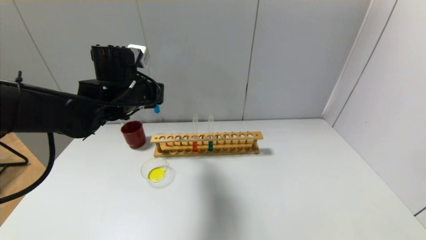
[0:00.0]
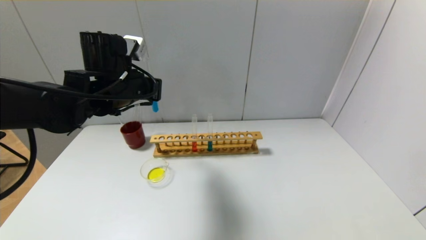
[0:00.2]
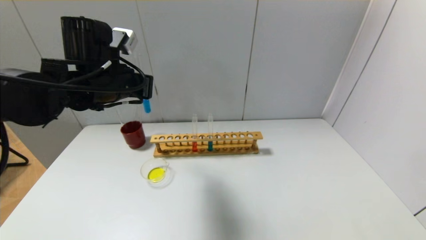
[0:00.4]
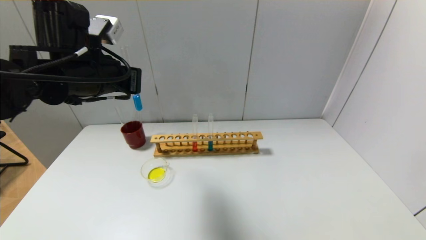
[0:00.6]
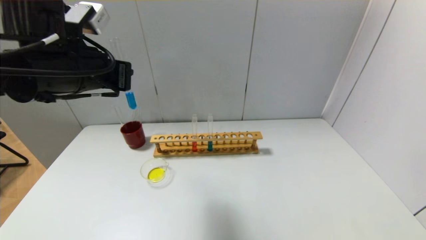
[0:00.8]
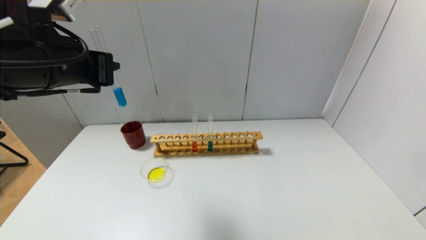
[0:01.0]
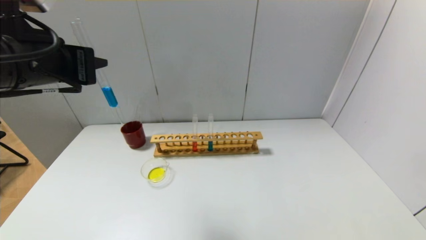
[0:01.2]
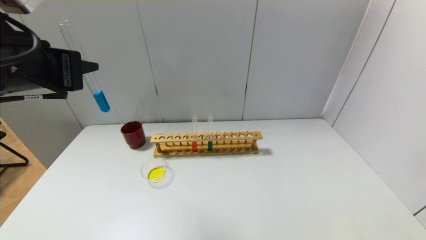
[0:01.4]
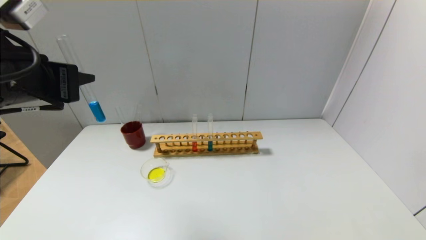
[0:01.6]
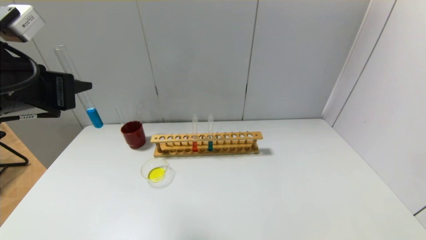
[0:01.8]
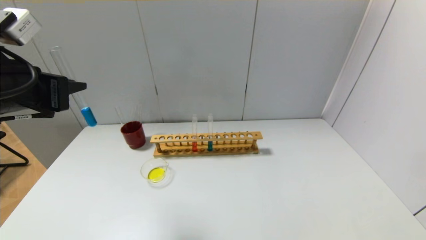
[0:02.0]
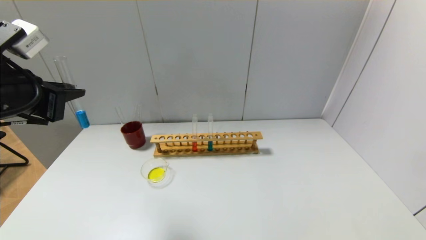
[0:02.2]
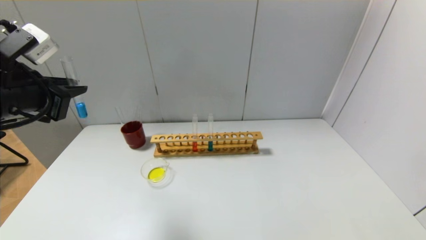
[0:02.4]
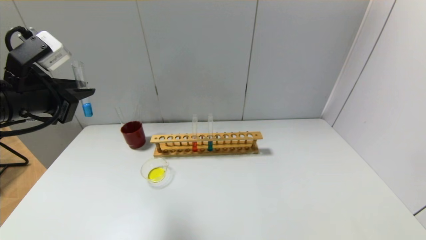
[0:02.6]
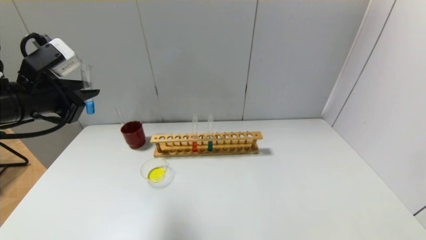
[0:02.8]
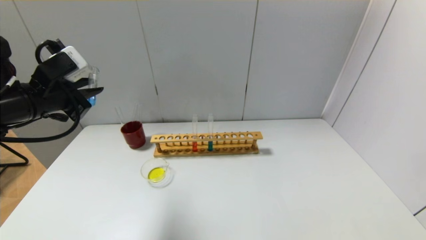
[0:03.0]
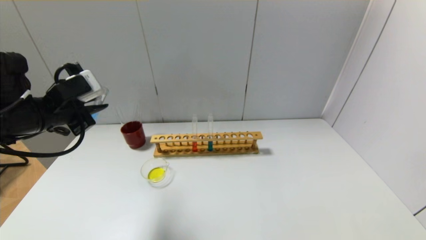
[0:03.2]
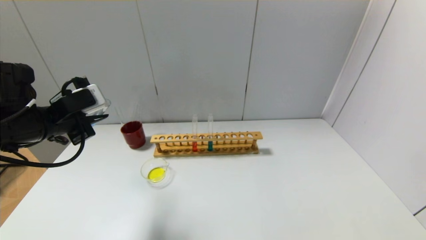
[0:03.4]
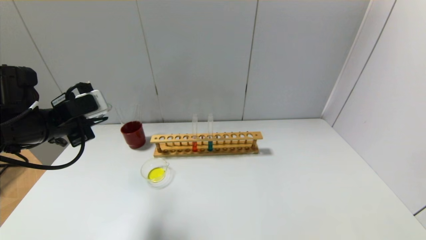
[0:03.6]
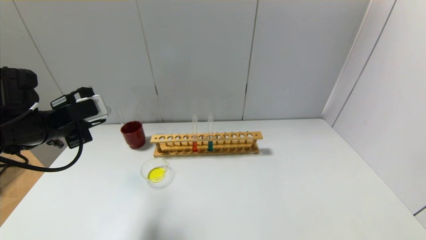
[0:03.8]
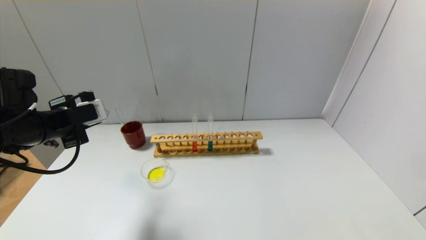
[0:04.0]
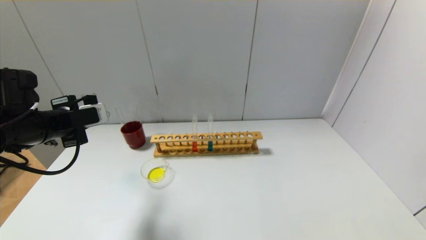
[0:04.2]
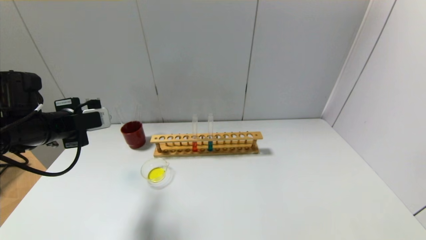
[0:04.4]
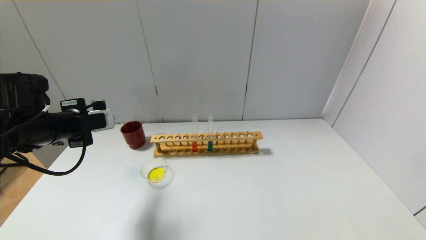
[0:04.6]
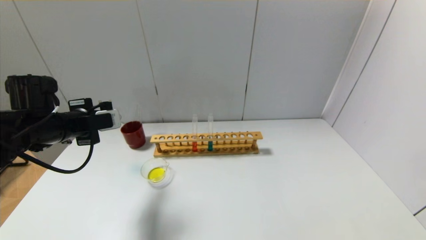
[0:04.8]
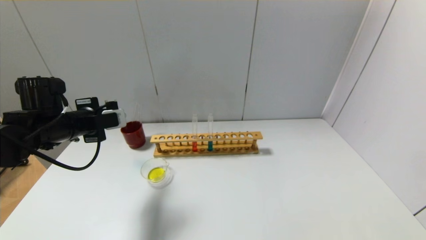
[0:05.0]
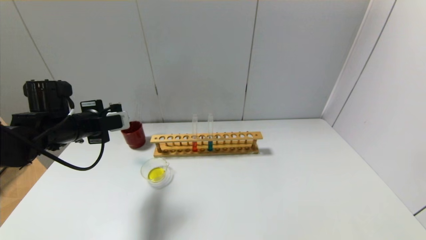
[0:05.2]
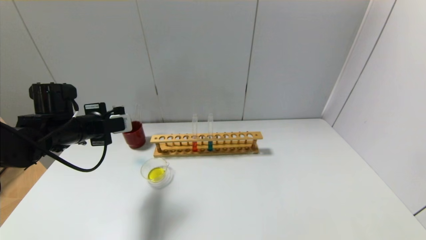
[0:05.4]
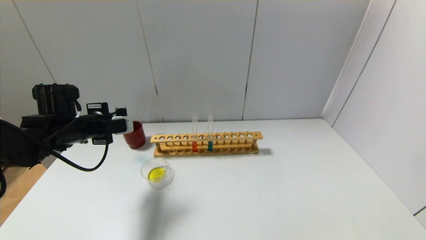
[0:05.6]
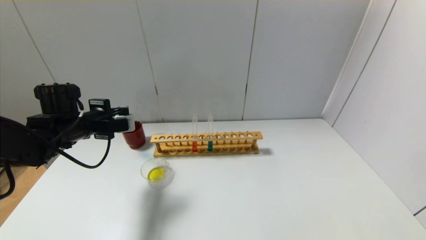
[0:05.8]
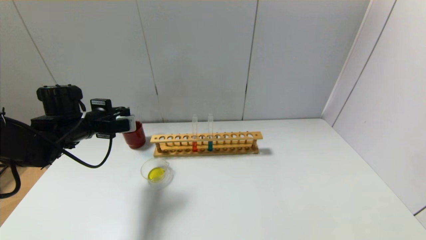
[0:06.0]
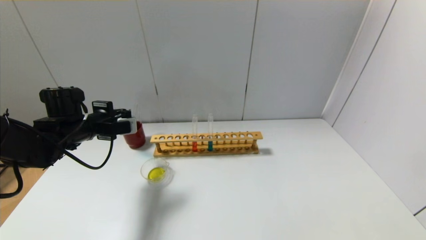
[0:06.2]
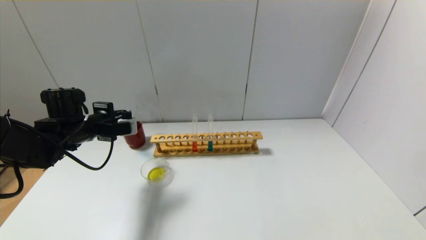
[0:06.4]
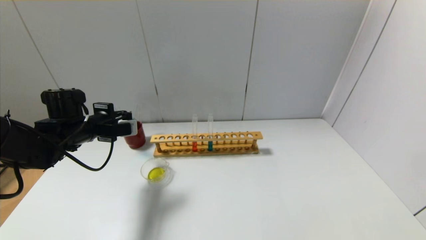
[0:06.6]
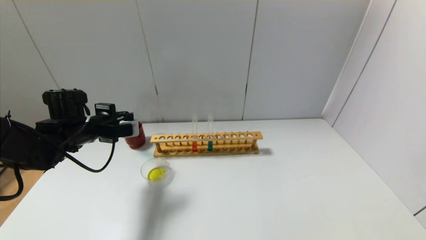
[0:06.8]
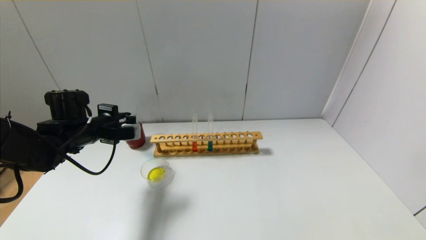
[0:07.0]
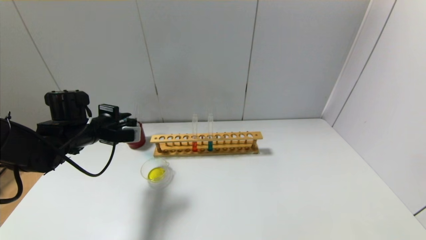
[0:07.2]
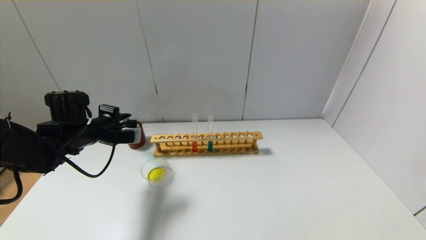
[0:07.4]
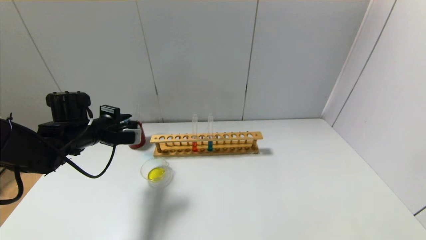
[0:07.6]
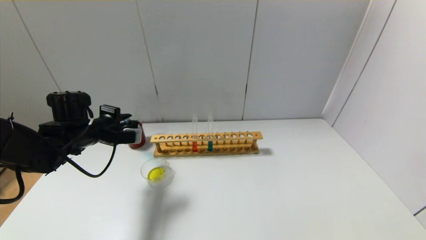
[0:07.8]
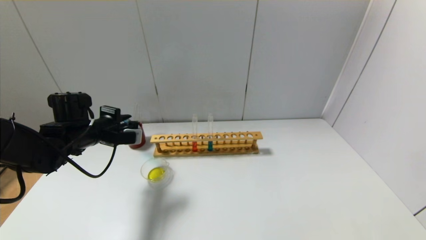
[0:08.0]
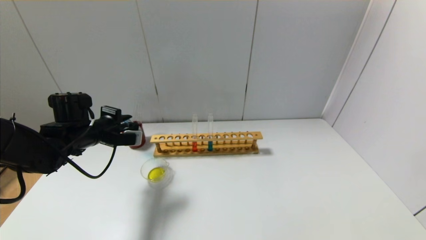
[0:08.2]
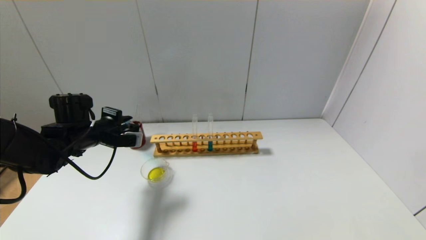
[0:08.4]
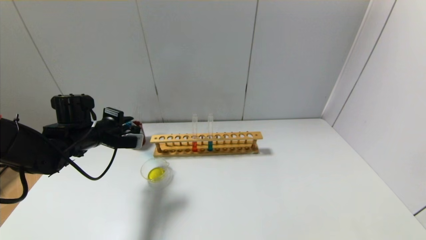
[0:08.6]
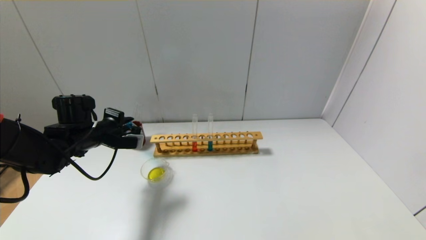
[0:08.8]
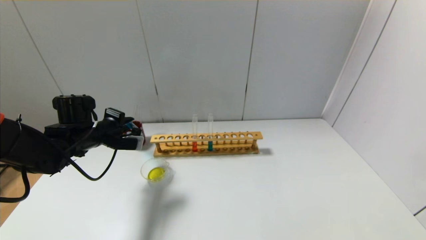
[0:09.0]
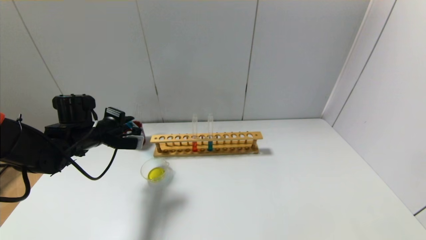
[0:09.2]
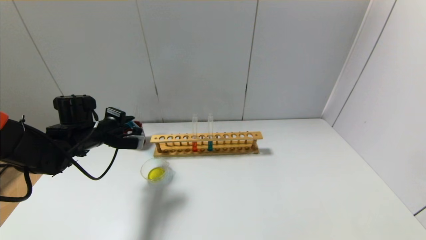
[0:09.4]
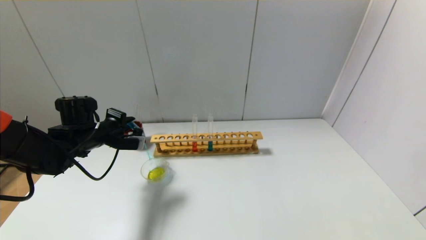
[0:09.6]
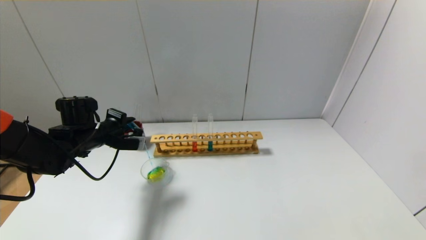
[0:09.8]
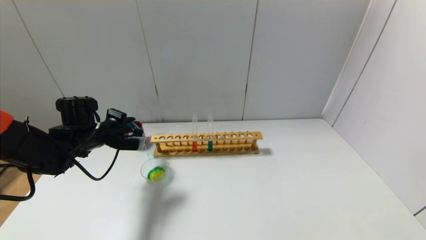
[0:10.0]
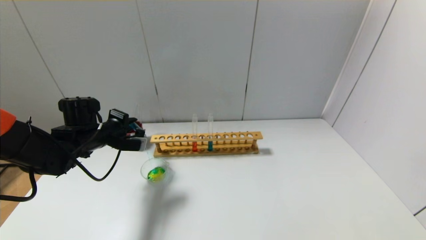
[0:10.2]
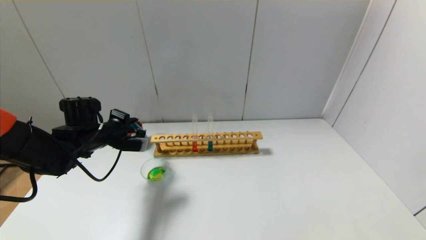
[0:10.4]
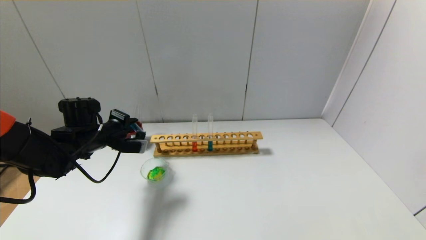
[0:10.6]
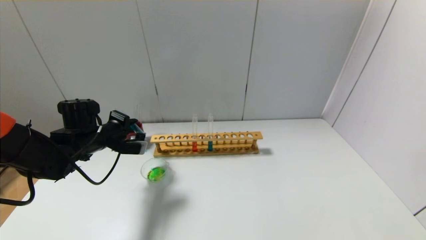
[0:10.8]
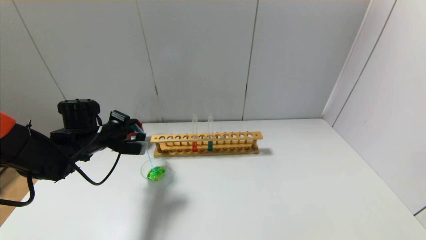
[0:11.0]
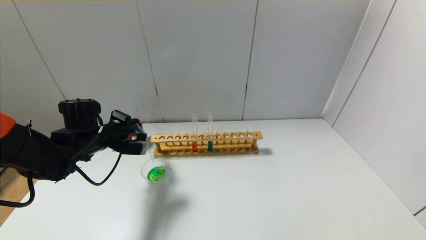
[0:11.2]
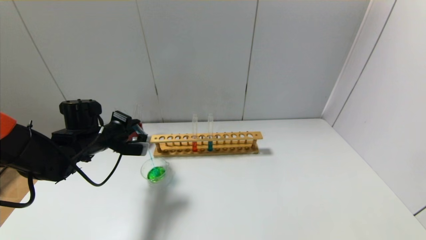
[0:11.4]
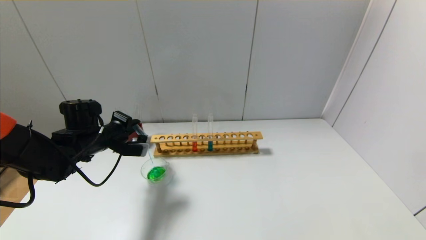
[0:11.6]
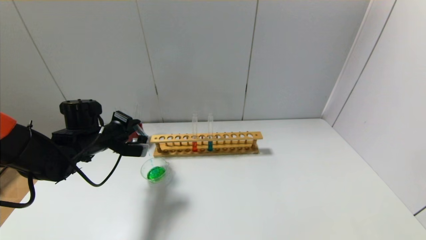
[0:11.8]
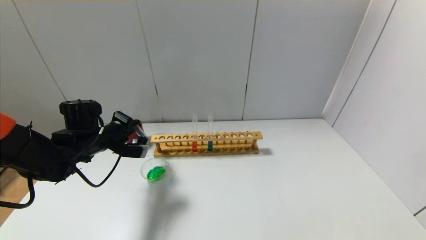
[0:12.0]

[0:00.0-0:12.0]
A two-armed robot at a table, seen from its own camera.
0:00.0 to 0:01.6: The left gripper shifts about 20 cm backward, upward and to the left.
0:01.6 to 0:03.0: The left gripper travels forward and downward by approximately 10 cm.
0:03.0 to 0:04.4: The left gripper travels downward by about 5 cm.
0:04.4 to 0:06.0: The left gripper moves forward, about 5 cm.
0:06.0 to 0:09.0: The grippers make only small movements.
0:09.0 to 0:10.4: Neither gripper changes place.
0:10.4 to 0:12.0: The grippers move only a little.

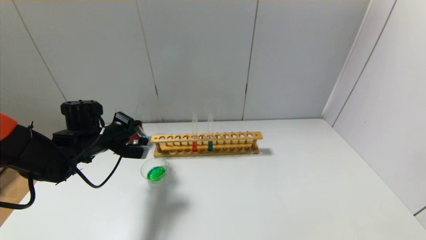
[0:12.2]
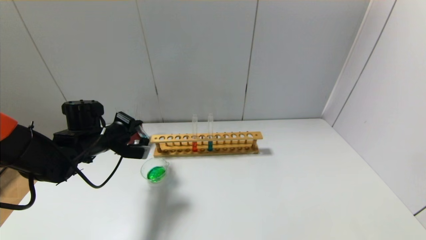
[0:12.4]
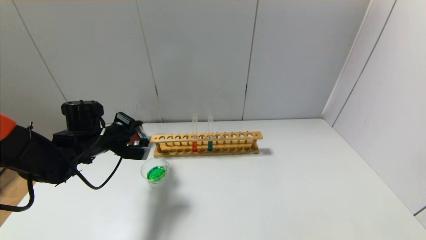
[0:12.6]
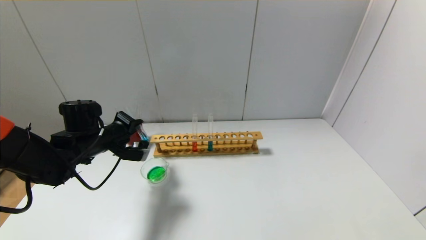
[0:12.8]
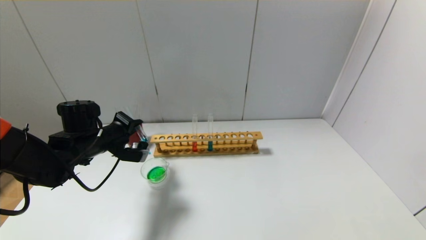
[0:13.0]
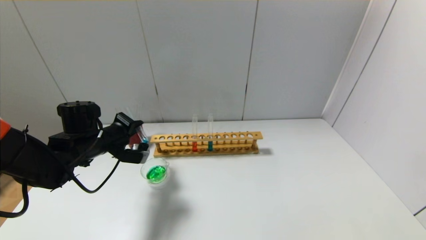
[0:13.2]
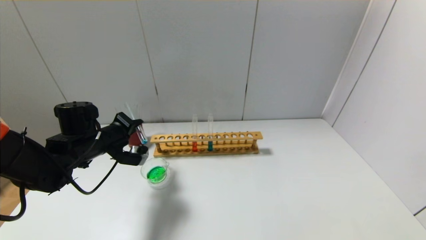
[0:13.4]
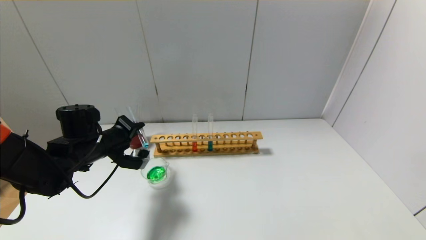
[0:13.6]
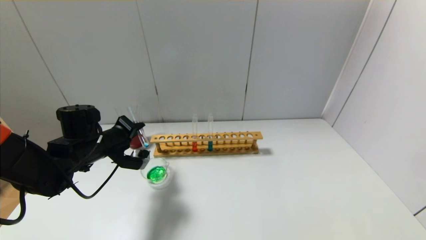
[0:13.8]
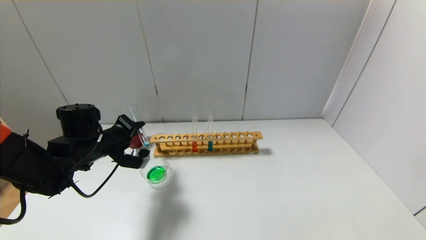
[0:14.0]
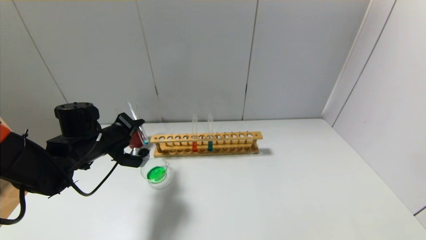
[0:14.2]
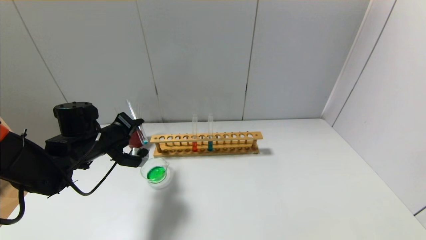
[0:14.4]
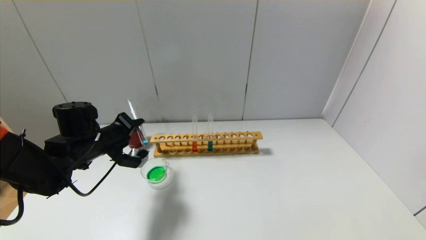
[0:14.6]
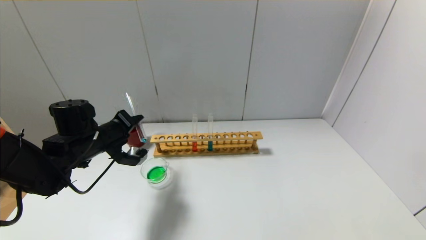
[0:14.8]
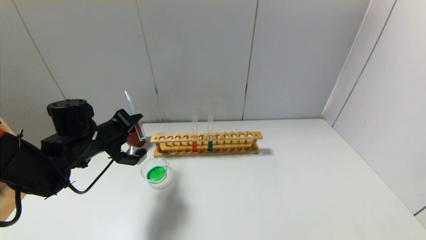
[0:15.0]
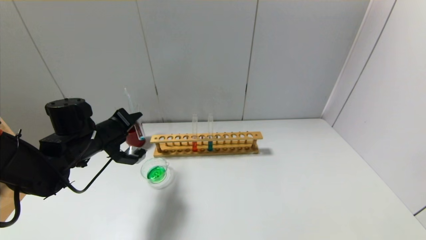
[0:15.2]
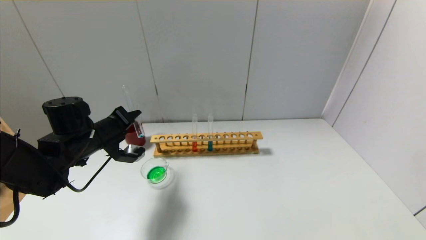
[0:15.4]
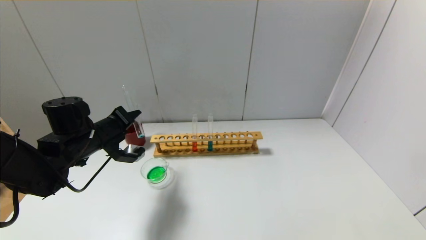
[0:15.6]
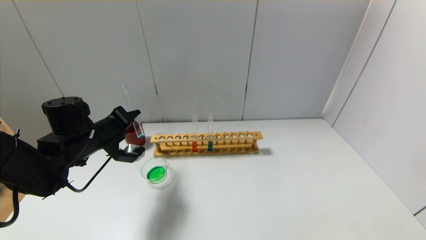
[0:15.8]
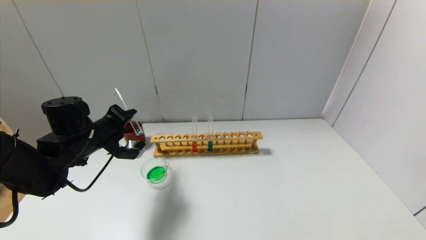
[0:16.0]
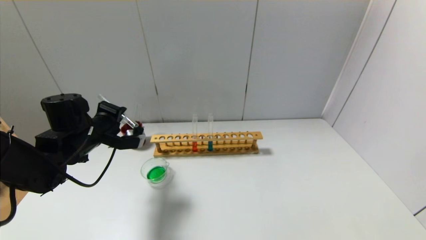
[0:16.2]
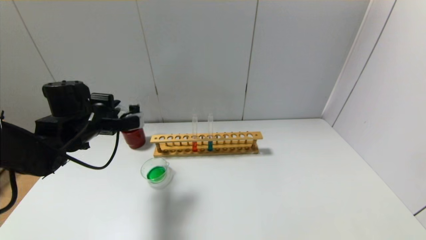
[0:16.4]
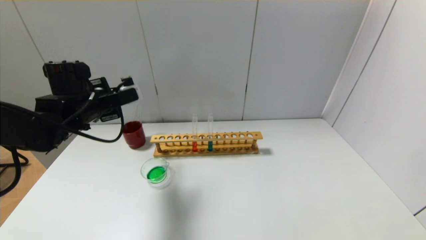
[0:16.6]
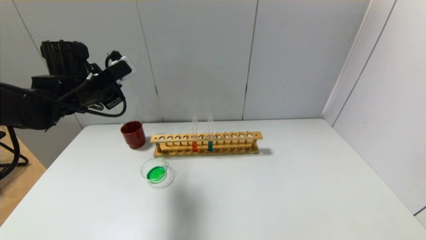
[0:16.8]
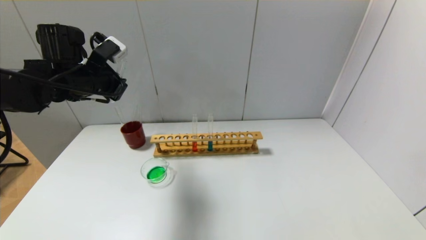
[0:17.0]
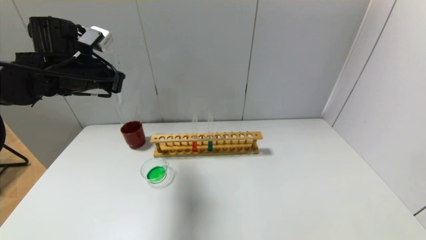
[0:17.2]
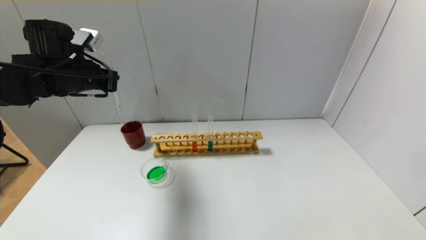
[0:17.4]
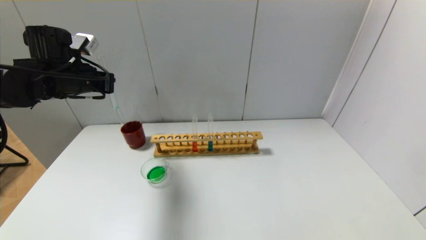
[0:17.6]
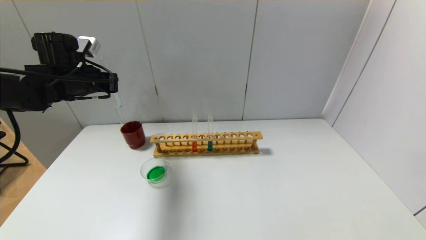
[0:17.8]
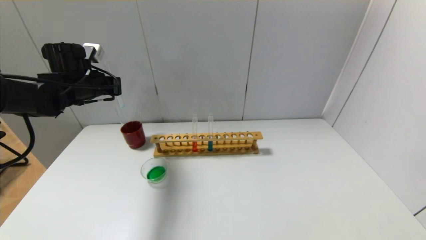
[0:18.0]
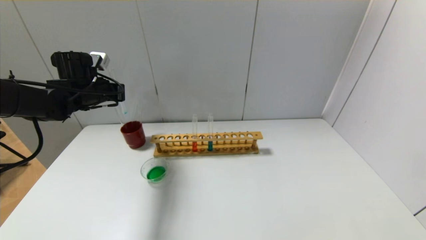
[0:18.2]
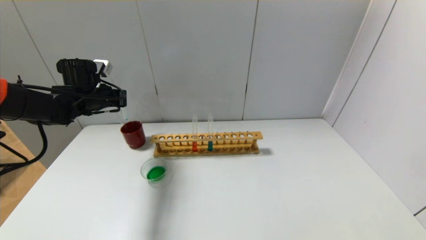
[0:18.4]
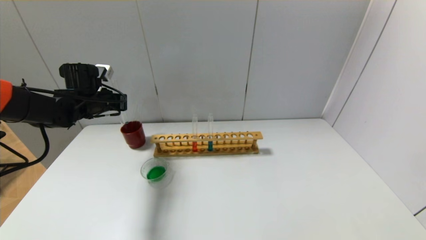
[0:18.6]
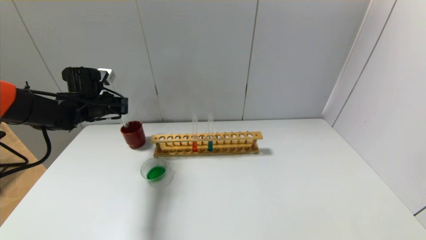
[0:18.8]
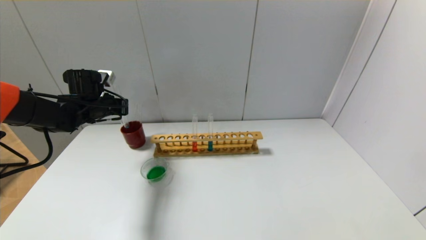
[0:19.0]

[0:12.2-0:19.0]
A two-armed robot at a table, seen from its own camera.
Step, 0:12.2 to 0:16.2: Pour the blue reagent into the graduated cylinder with the left gripper.
0:12.2 to 0:13.6: The grippers stay close to where they were, moving slightly.
0:13.6 to 0:15.0: The grippers make only small movements.
0:16.2 to 0:17.6: The left gripper heads upward, covering about 10 cm.
0:17.6 to 0:19.0: The left gripper is displaced downward and forward by approximately 10 cm.
